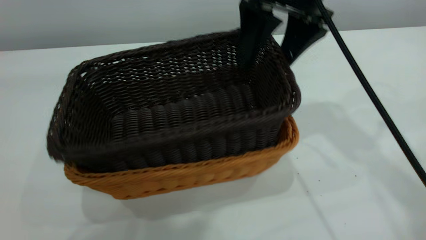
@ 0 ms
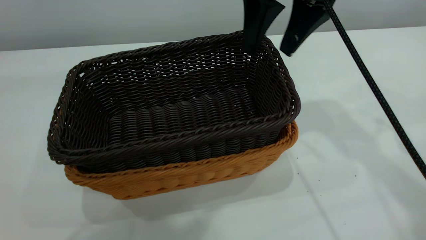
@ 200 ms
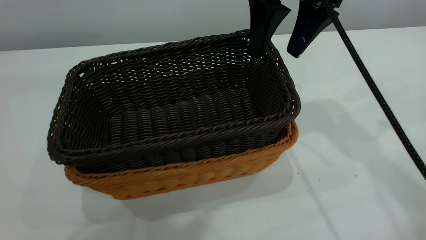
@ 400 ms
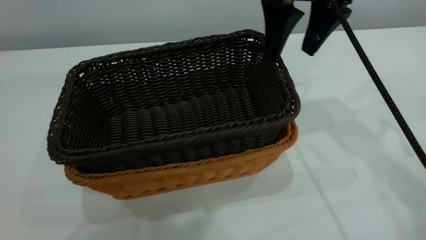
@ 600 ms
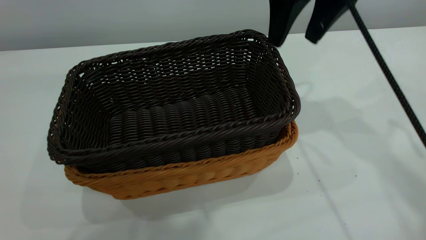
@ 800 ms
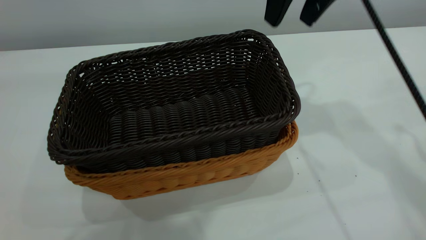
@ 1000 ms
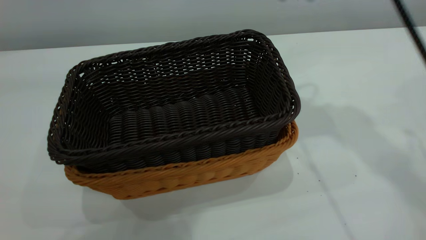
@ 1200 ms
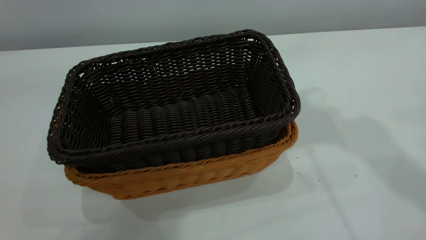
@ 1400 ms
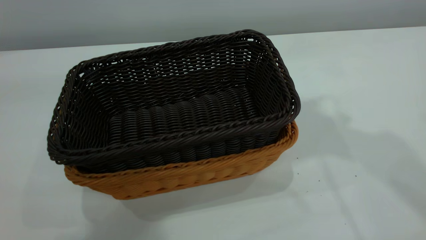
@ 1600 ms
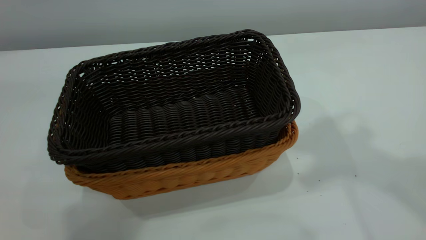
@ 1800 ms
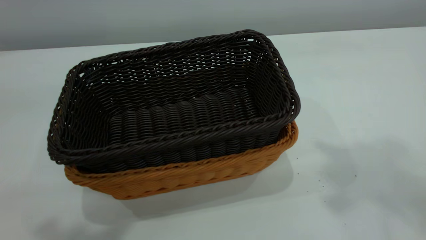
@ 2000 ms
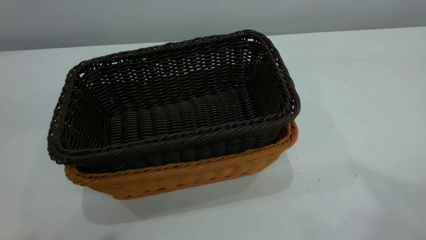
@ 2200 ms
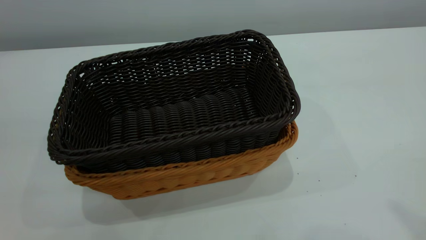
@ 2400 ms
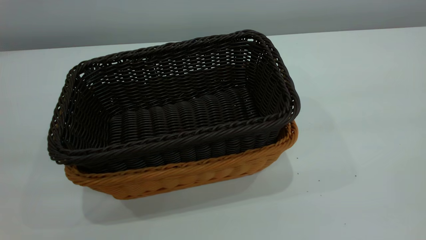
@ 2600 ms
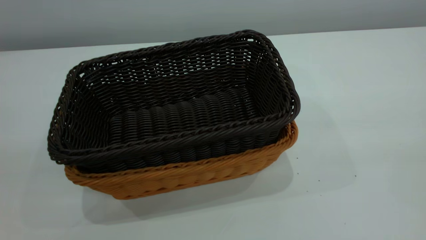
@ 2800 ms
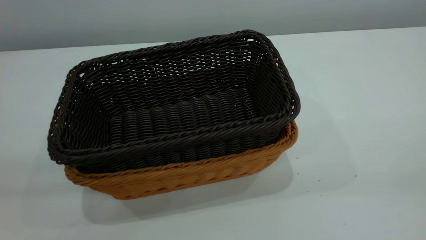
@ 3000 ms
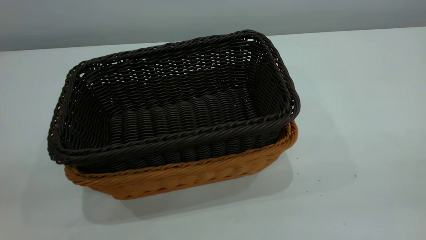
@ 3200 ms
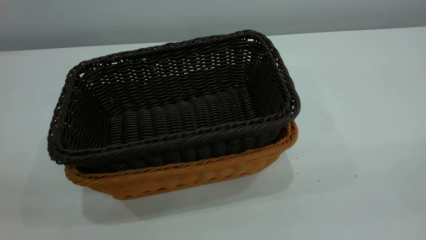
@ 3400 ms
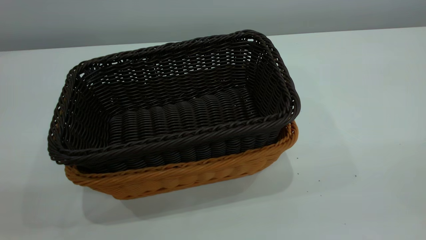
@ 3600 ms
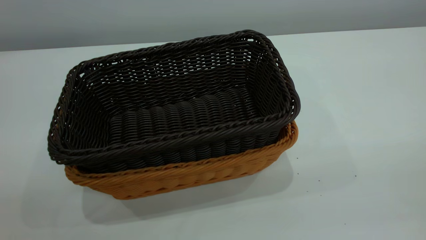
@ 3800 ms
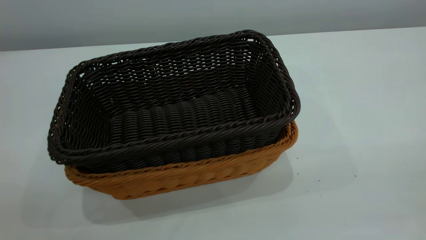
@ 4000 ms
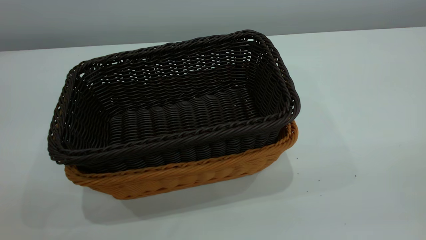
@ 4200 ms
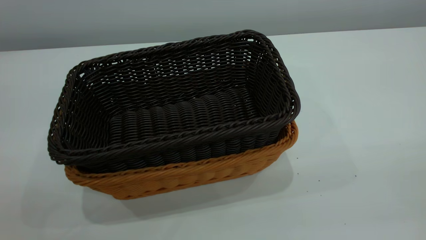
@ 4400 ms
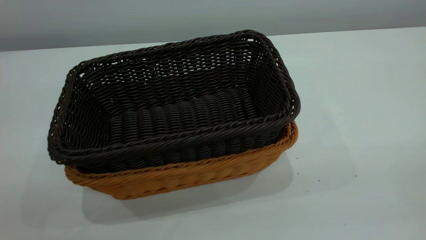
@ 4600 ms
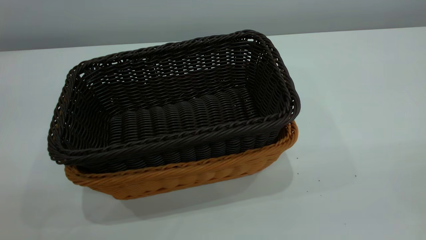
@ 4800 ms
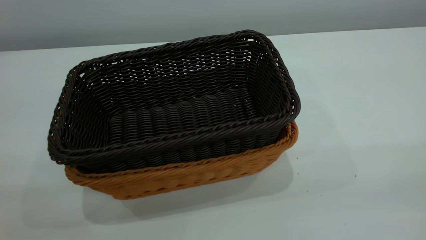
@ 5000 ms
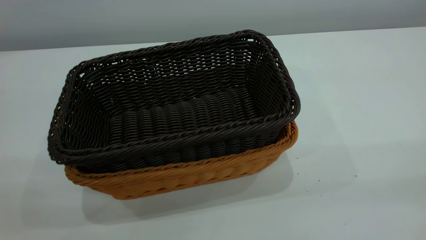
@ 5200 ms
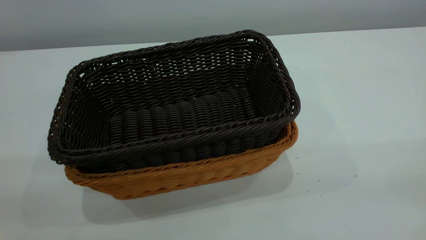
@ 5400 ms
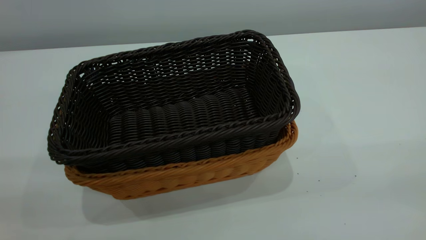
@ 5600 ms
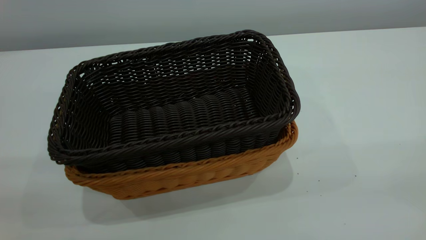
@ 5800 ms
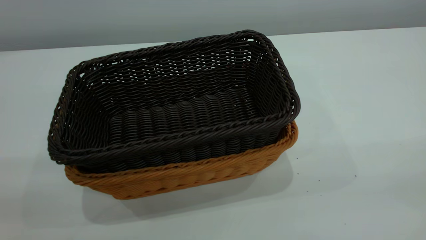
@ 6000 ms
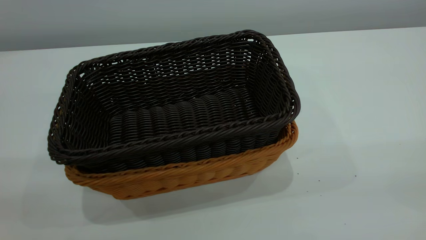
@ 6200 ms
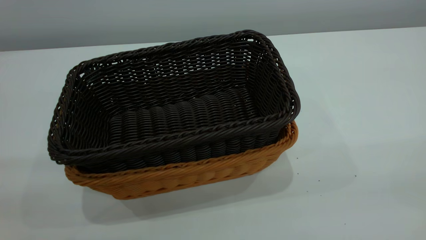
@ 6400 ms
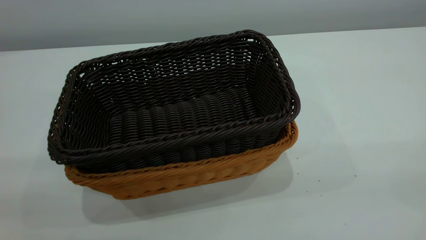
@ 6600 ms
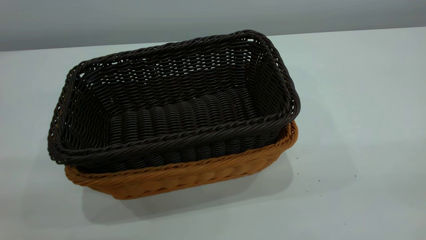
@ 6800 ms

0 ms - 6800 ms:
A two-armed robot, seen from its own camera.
Task of the whole recording: the left gripper grasp the brown basket and place it in the center of the table, the right gripper grasp the black basket and place it inside the brown one.
0 ms - 1400 ms: The right gripper shifts about 15 cm upward, and closes its fingers. The left gripper closes.
1400 ms - 2800 ms: The left gripper shifts approximately 20 cm backward, to the left and downward, and closes.
5400 ms - 6800 ms: Neither gripper changes place.
